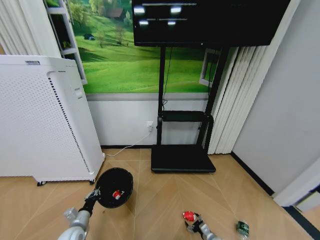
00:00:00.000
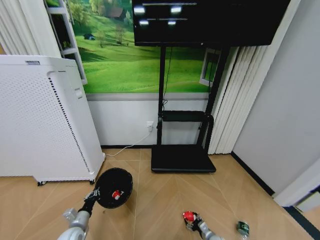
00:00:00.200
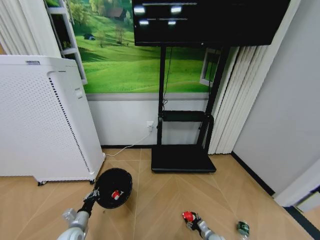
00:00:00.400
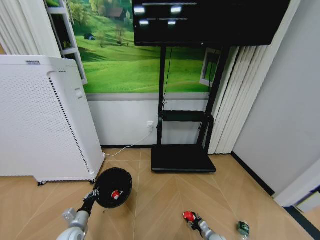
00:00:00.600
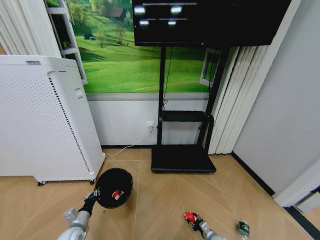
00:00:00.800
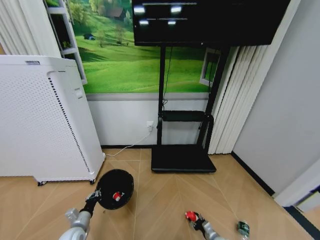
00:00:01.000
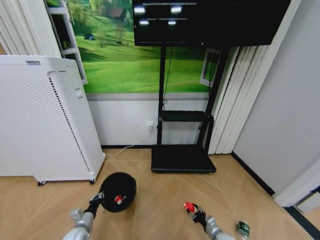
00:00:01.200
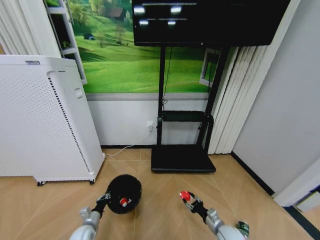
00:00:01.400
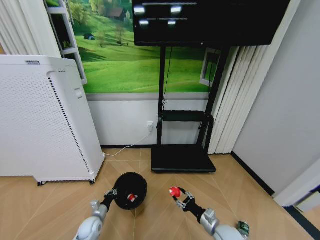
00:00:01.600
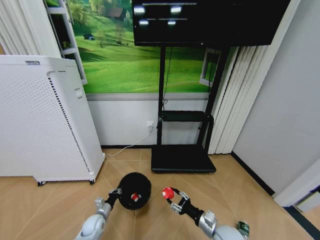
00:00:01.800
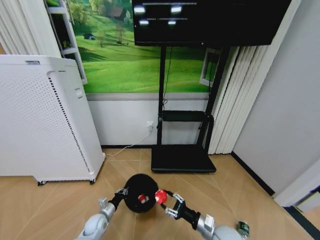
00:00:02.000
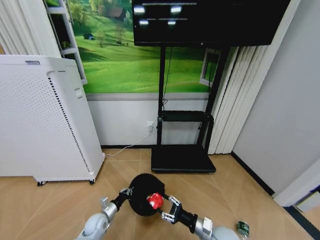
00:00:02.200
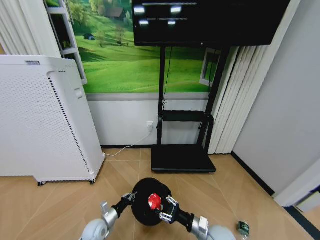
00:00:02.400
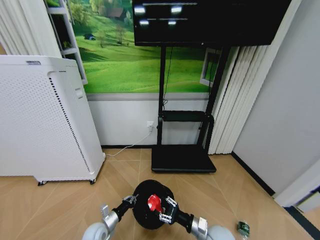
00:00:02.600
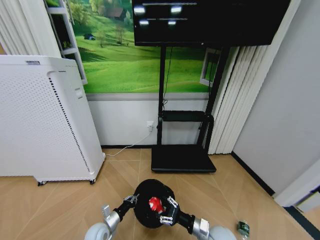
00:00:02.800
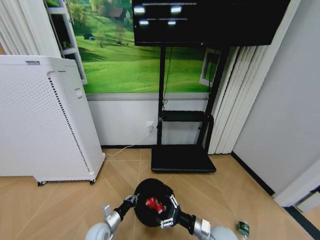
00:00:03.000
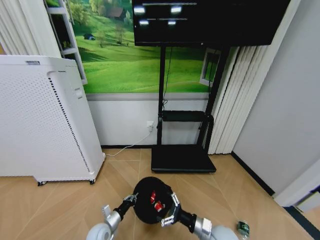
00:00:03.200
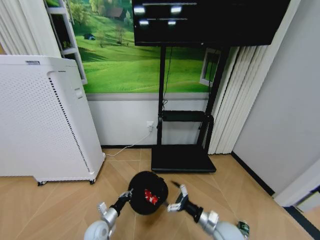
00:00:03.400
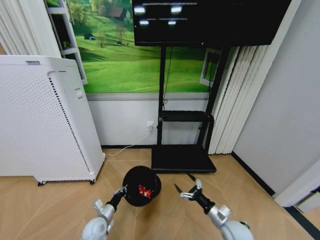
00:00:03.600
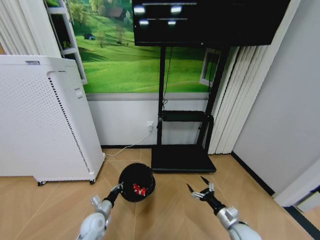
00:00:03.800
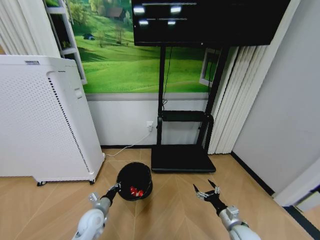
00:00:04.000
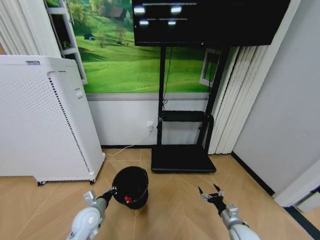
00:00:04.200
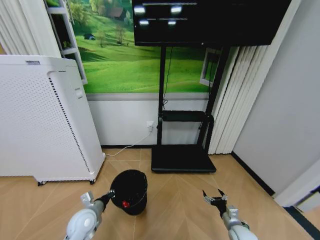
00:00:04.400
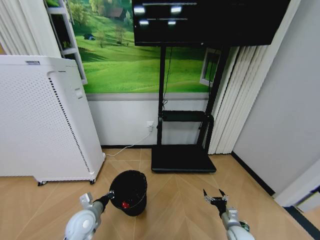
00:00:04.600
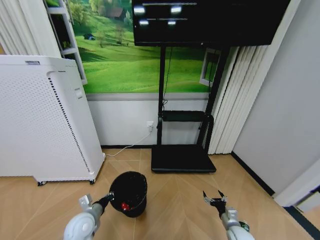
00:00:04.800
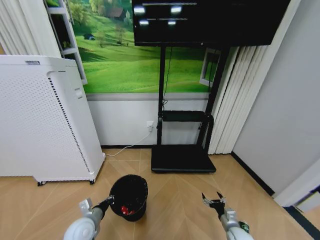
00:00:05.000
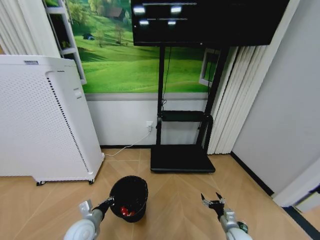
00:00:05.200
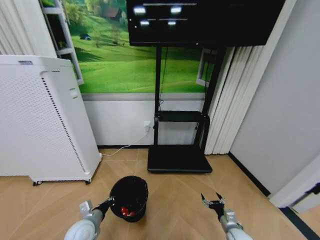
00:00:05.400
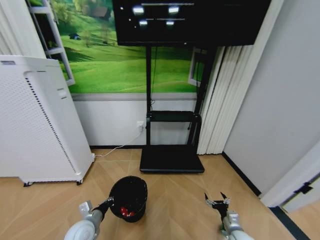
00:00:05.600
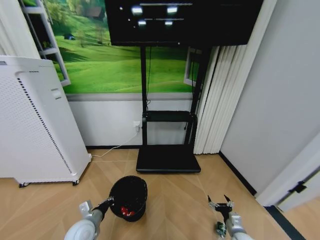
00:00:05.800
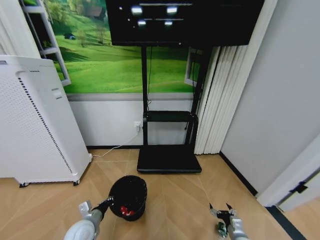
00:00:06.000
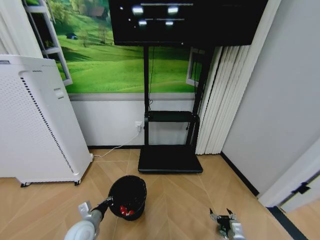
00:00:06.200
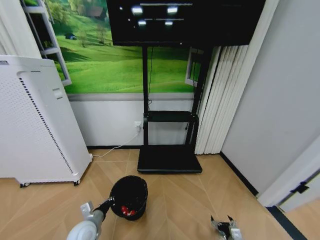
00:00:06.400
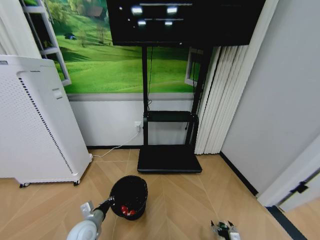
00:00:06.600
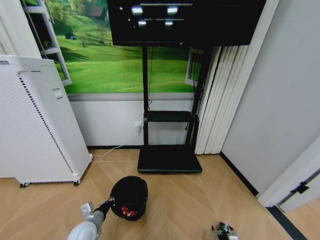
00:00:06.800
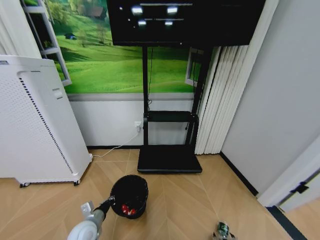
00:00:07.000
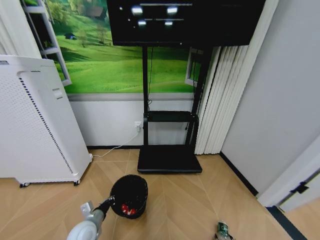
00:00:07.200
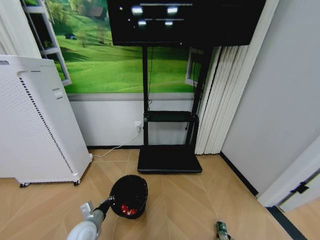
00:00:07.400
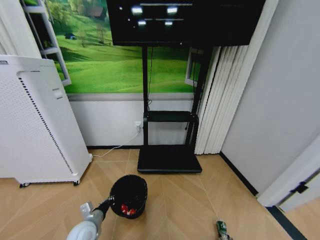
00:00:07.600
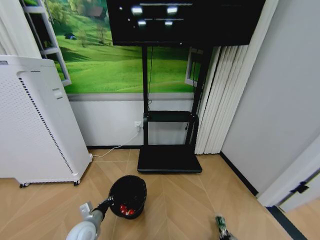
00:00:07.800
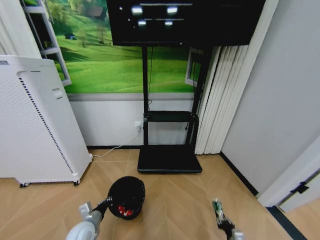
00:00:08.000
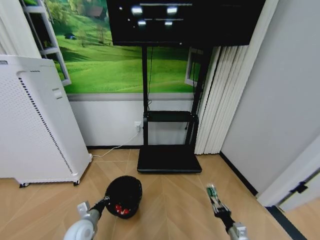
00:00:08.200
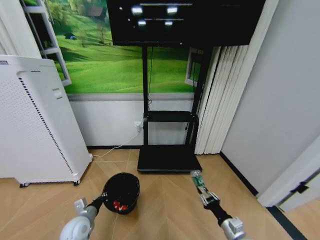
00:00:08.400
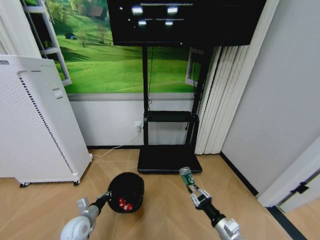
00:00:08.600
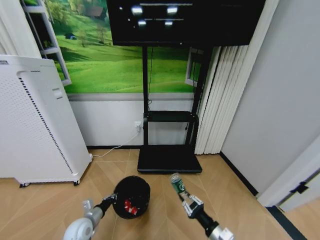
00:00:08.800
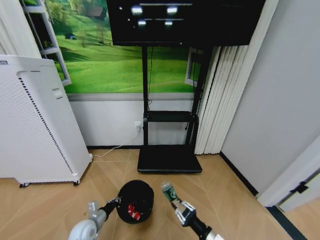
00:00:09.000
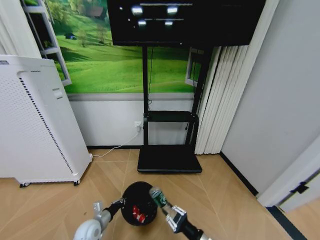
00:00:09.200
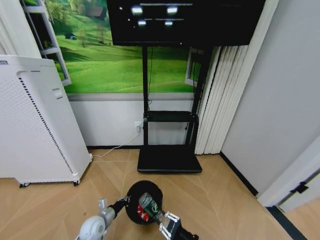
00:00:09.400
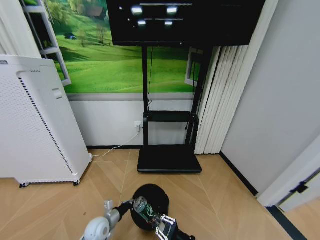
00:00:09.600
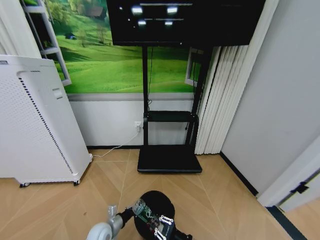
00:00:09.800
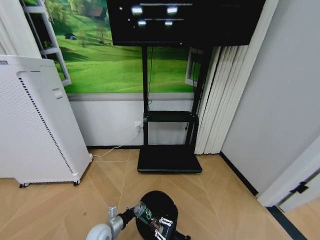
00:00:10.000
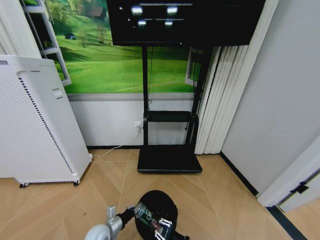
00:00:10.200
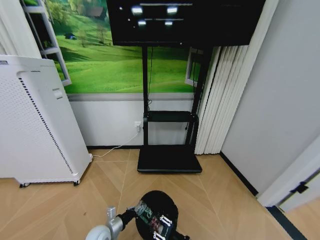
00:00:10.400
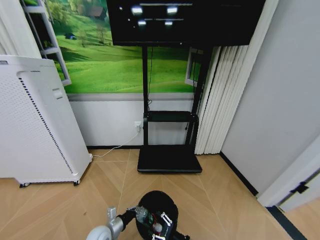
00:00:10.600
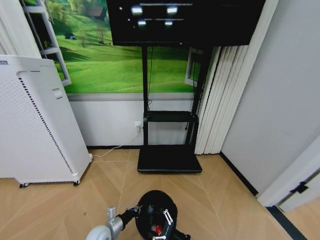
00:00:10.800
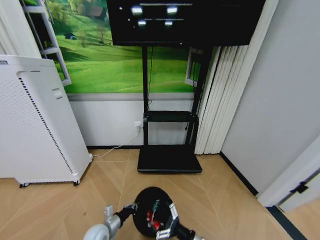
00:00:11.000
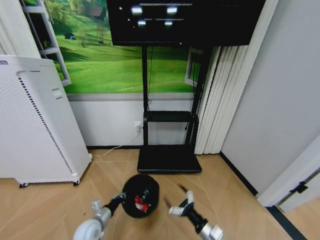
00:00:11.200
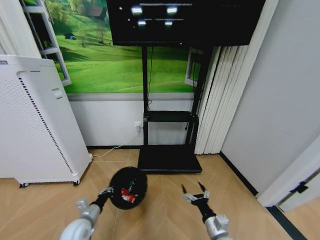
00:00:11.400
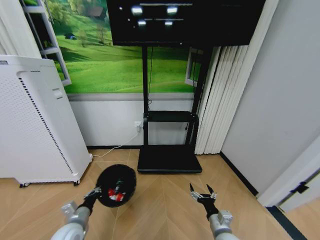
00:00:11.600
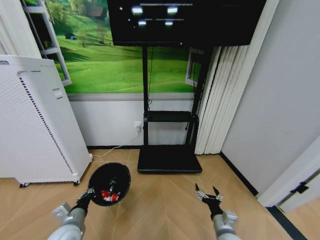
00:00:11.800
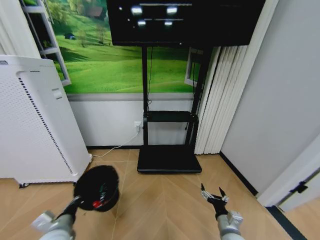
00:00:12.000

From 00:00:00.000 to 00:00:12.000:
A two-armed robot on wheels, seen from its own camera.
Task of the whole recording: Pick up the trash bin and place the garbage on the floor into it.
From 00:00:00.000 to 00:00:01.600: The left gripper goes about 10 cm downward and forward. The right gripper moves upward, roughly 20 cm, and closes its fingers.
From 00:00:01.600 to 00:00:03.000: The right gripper opens up. Meanwhile the left gripper is displaced to the right by about 5 cm.
From 00:00:03.000 to 00:00:04.400: The left gripper shifts approximately 15 cm upward, while the right gripper is displaced to the right and downward by about 15 cm.
From 00:00:06.000 to 00:00:07.600: The right gripper moves downward and backward, roughly 15 cm, and closes its fingers.
From 00:00:07.600 to 00:00:09.000: The right gripper heads upward and to the left, covering approximately 30 cm, while the left gripper travels downward by about 5 cm.
From 00:00:09.000 to 00:00:10.400: The right gripper travels to the left by roughly 5 cm, while the left gripper moves to the right, roughly 5 cm.
From 00:00:10.400 to 00:00:12.000: The left gripper moves upward and to the left, about 15 cm. The right gripper travels to the right by about 10 cm, and opens its fingers.

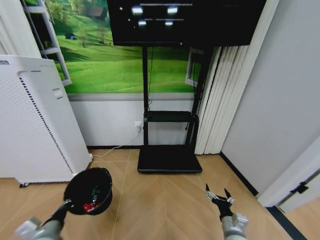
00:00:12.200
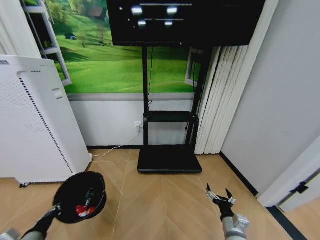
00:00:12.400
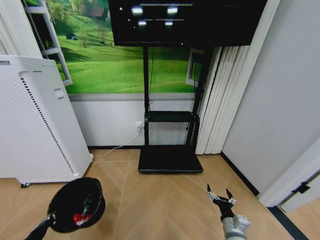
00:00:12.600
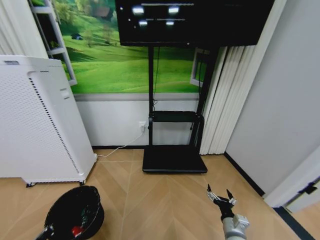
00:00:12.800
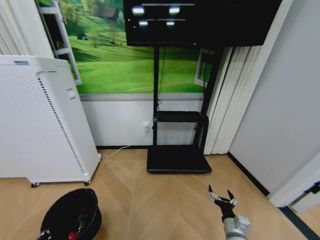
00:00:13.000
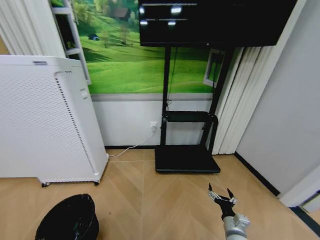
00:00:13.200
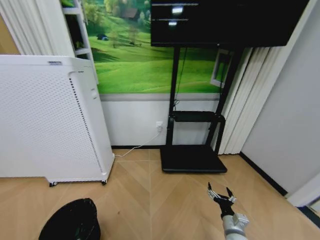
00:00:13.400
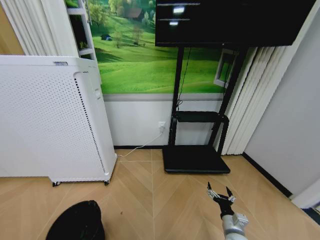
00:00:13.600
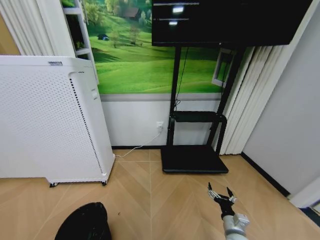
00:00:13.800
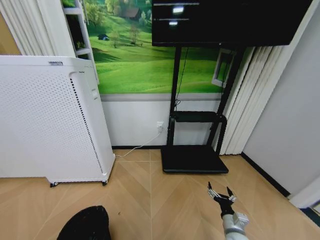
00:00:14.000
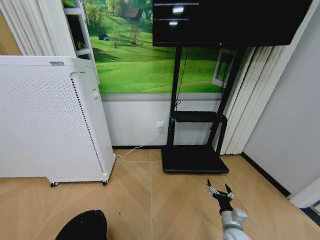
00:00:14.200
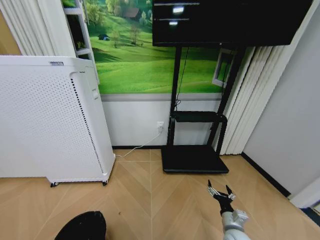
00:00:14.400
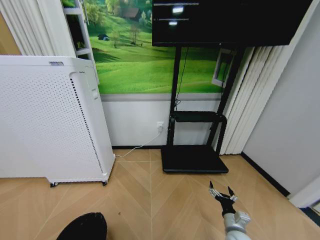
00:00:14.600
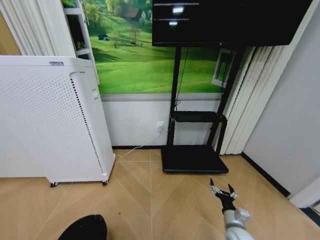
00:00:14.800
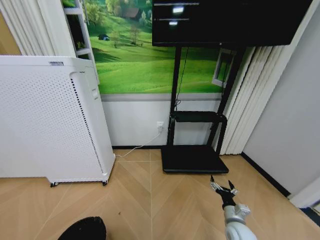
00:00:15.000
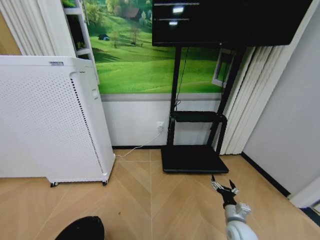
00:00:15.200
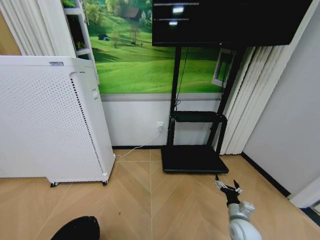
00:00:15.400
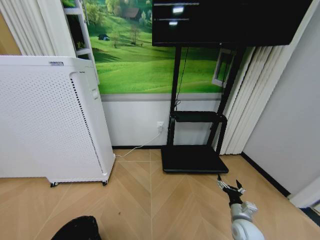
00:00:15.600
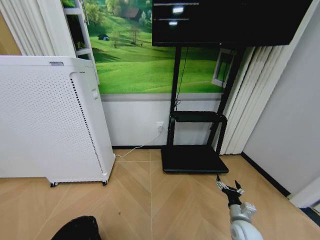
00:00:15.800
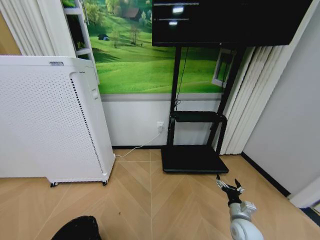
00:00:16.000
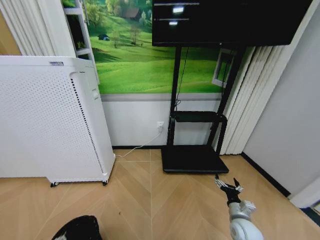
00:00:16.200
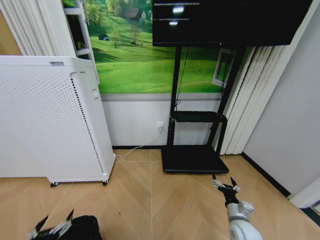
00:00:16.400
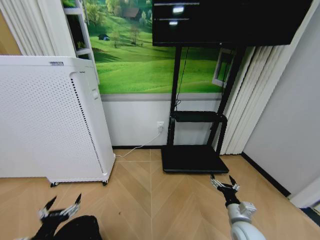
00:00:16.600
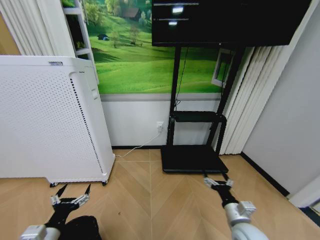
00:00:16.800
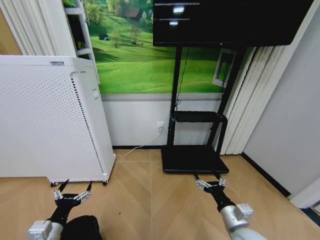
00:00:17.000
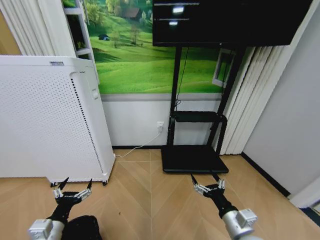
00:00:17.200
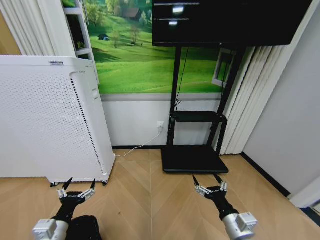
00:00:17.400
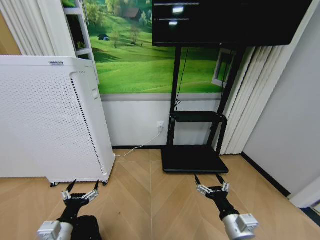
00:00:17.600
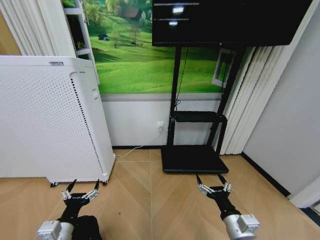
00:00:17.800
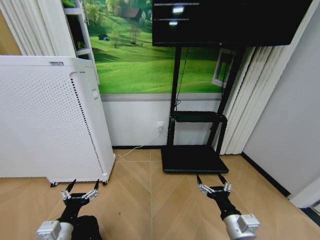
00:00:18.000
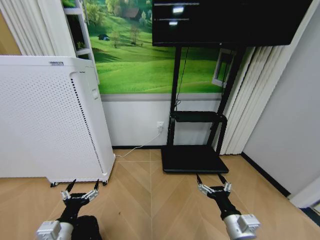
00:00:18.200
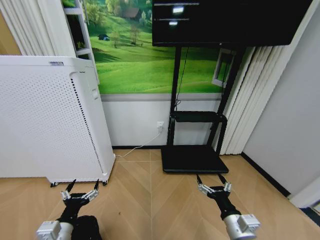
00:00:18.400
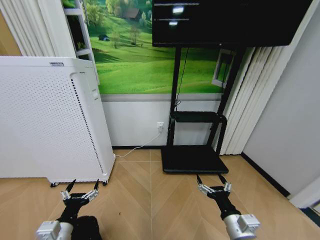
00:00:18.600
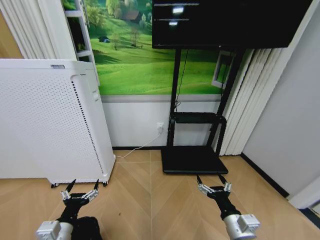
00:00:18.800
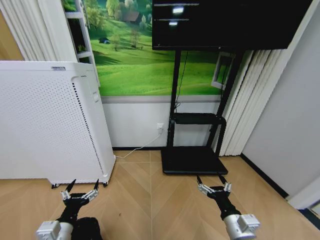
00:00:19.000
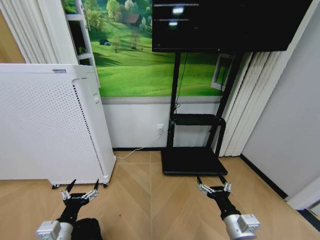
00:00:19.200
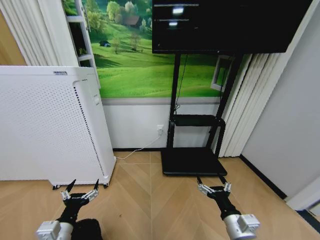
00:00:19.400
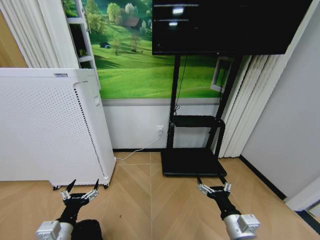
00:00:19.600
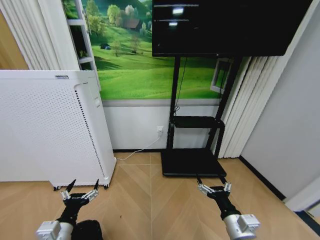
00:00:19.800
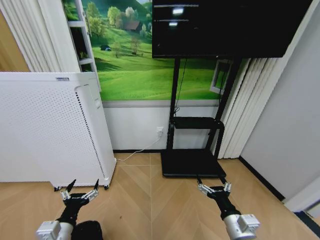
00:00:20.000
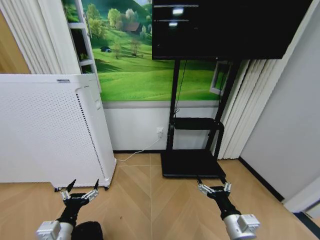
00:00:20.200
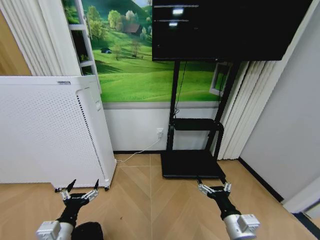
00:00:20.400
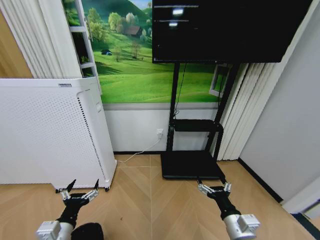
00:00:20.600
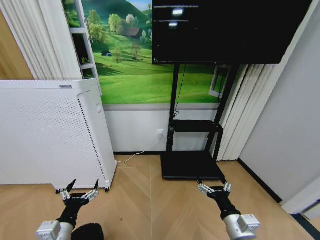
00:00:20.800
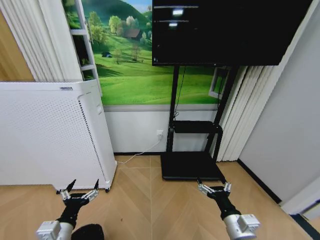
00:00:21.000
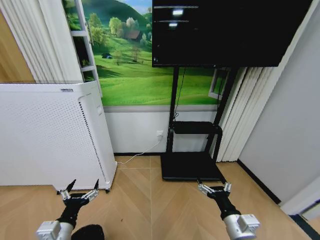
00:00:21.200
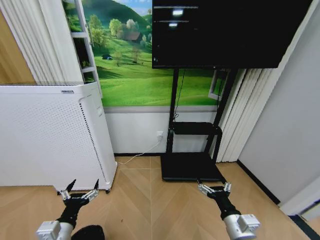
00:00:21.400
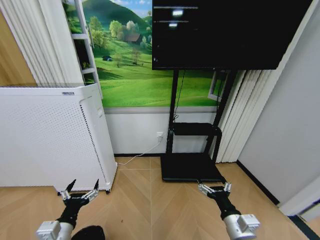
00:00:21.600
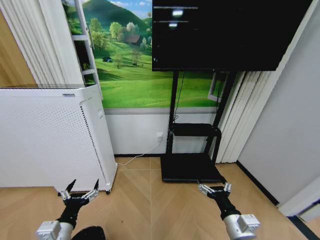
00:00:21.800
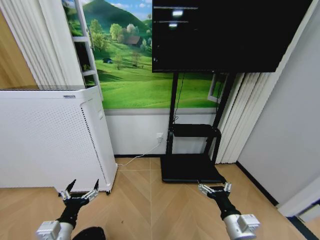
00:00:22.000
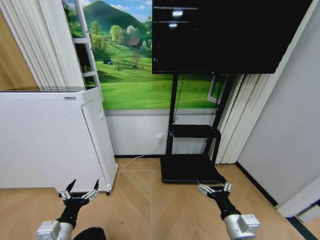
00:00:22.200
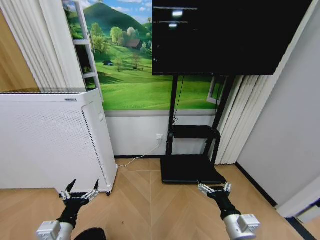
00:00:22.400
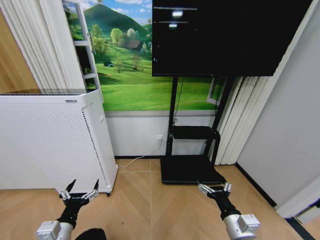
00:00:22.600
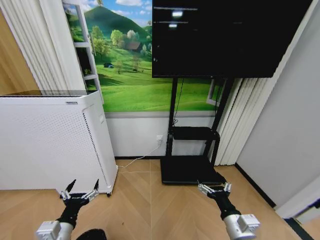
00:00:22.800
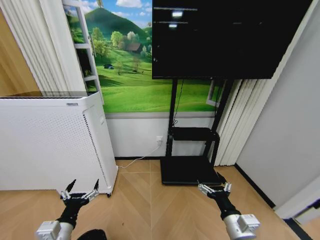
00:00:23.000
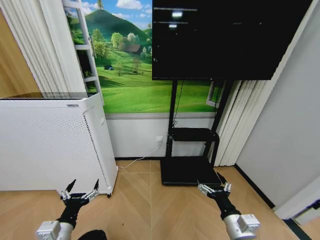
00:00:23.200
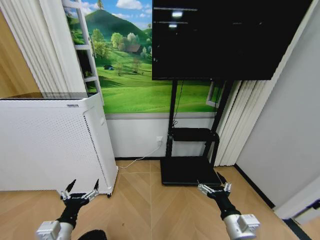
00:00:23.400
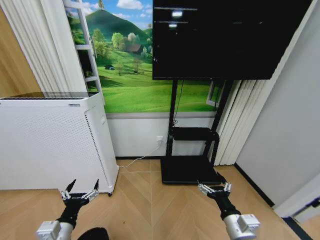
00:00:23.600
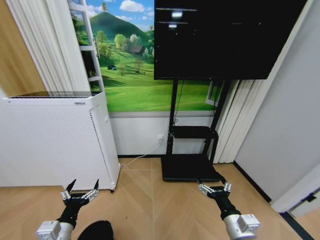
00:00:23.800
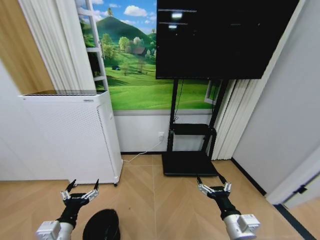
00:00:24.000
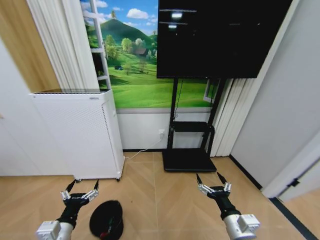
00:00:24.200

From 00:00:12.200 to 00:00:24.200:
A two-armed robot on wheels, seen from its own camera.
Task of the whole recording: Pick up the trash bin and place the garbage on the floor into it.
From 00:00:12.200 to 00:00:13.800: The left gripper heads backward and downward, covering roughly 10 cm.
From 00:00:13.800 to 00:00:15.200: The grippers move only a little.
From 00:00:15.200 to 00:00:16.600: The left gripper is displaced upward and forward by some 10 cm, and opens its fingers.
From 00:00:16.600 to 00:00:18.200: The right gripper travels upward, to the left and backward by about 15 cm, while the left gripper heads to the right, covering some 5 cm.
From 00:00:18.200 to 00:00:22.600: Both grippers stay about where they are.
